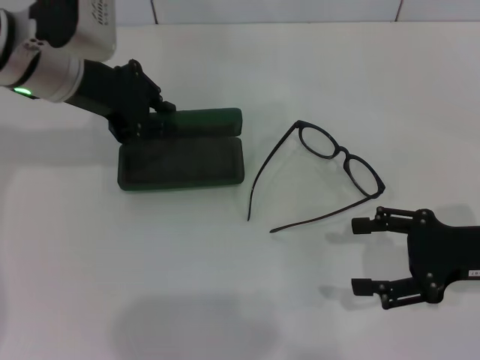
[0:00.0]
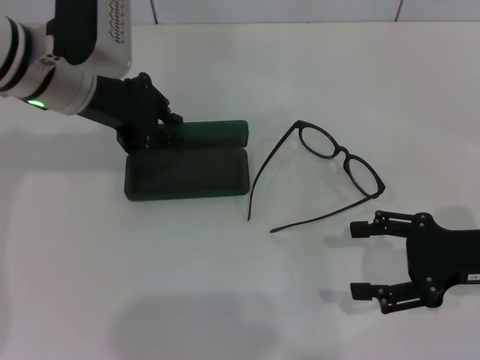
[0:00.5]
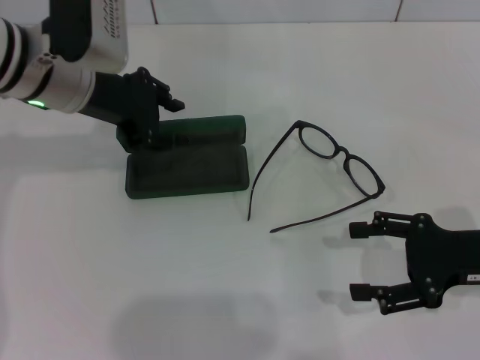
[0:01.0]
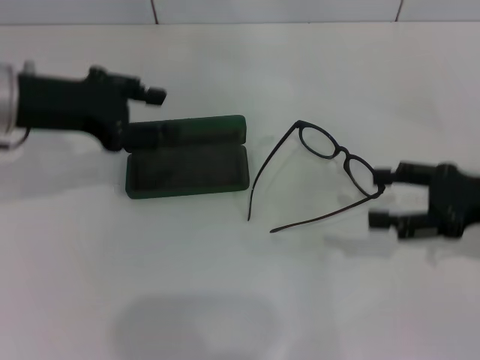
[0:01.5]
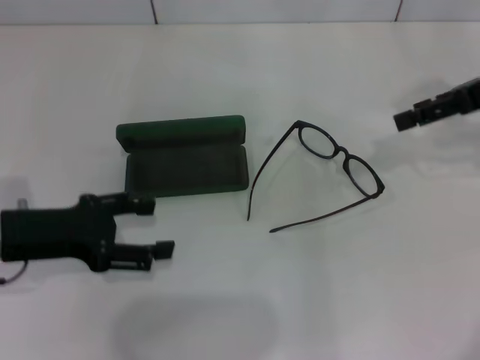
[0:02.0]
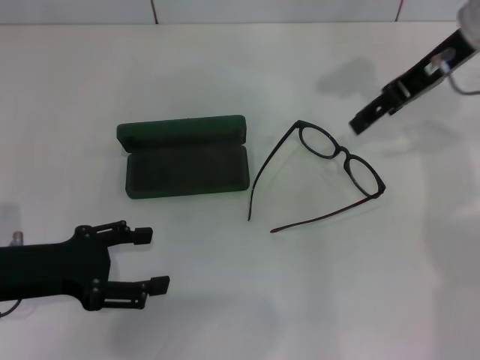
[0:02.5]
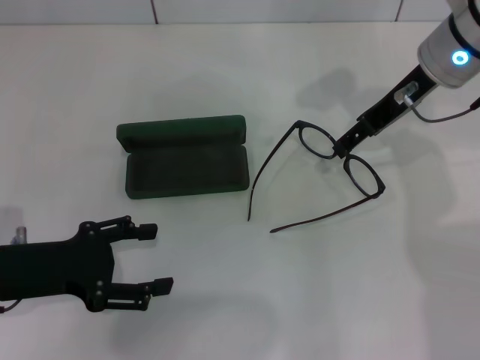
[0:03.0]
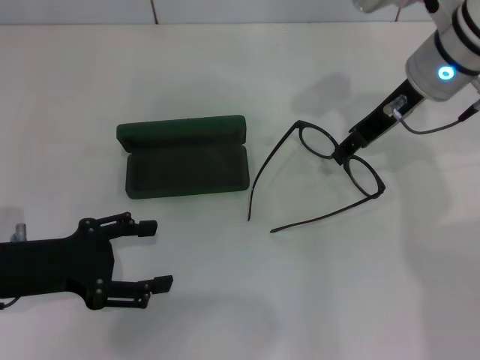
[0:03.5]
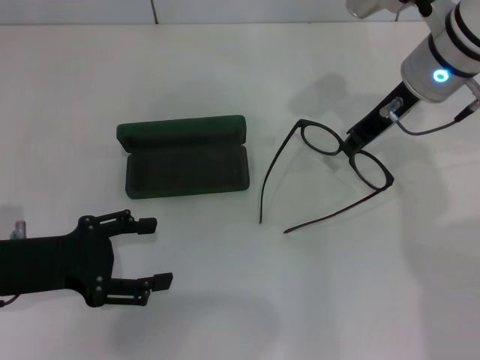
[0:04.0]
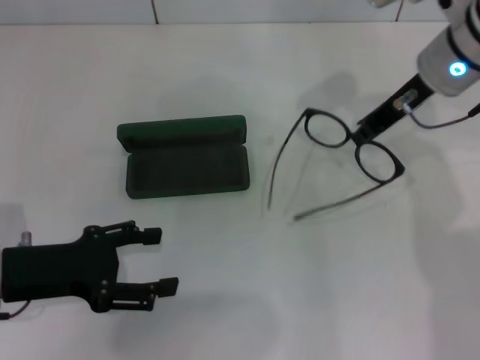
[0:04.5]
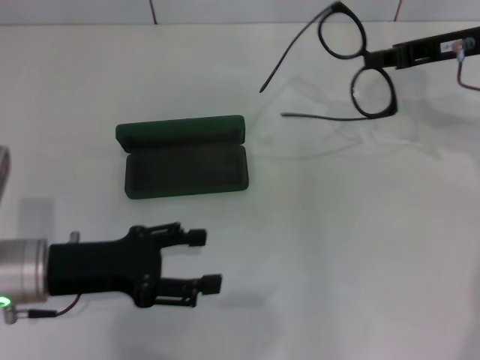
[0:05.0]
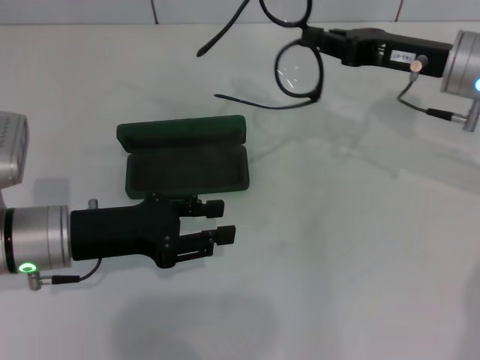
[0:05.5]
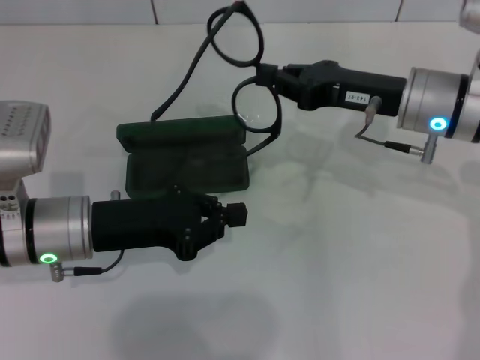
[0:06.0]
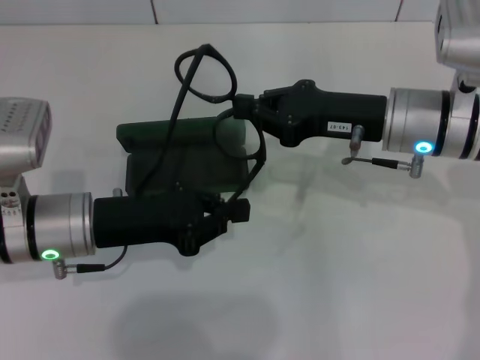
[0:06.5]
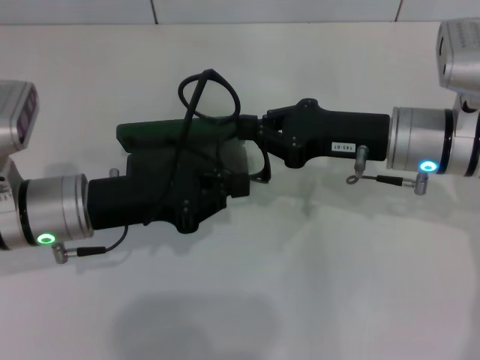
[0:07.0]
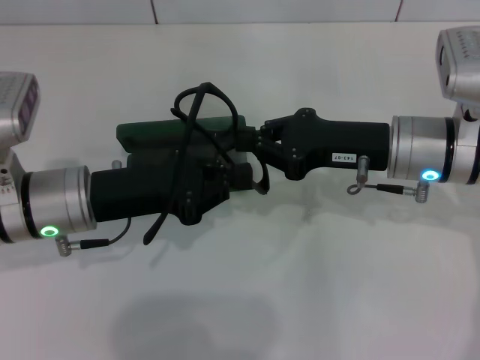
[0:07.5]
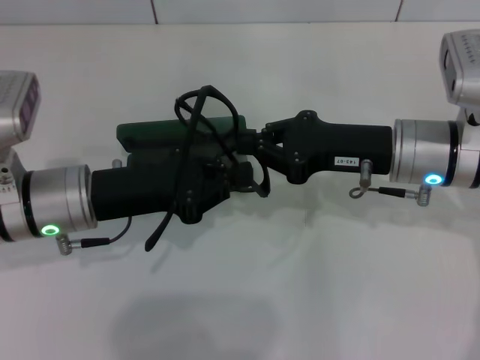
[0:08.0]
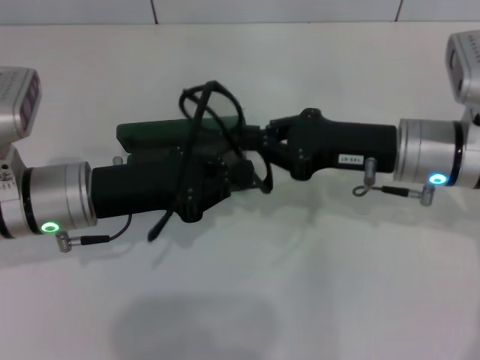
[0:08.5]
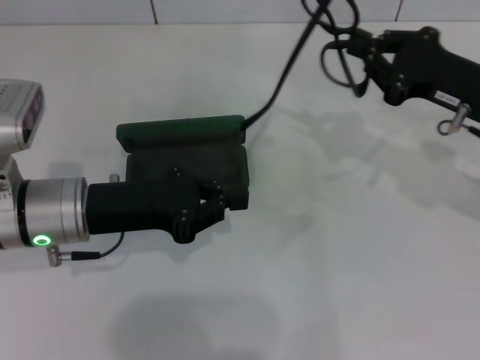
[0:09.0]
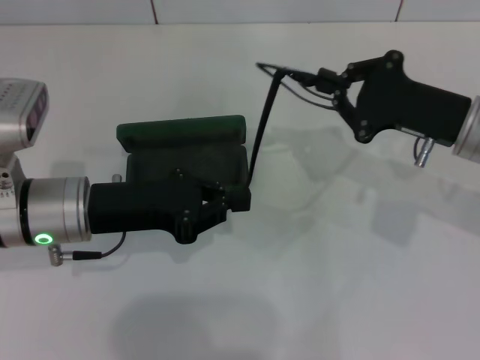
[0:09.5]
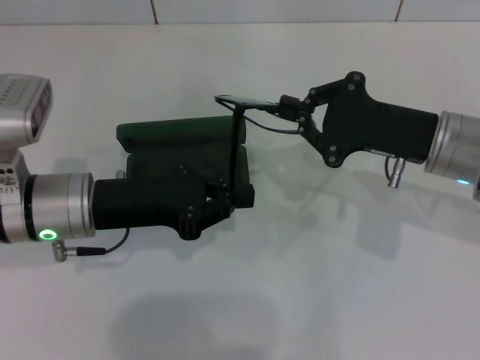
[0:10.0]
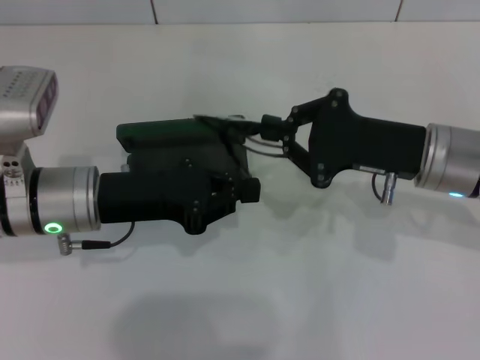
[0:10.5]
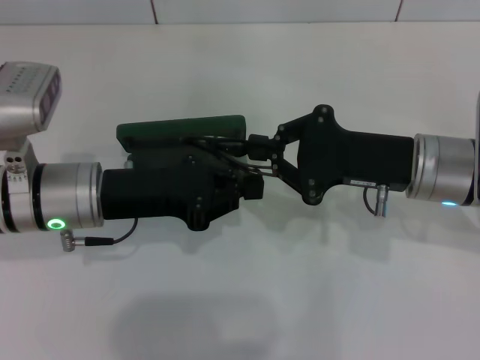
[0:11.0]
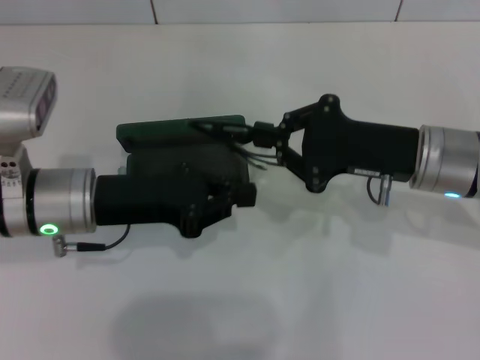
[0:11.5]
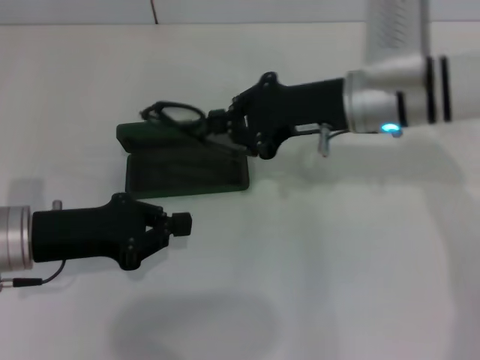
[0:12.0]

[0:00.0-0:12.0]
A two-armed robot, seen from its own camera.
Step, 0:01.0 to 0:04.0: Grab the eyeglass frame with your right hand.
Step, 0:04.5 to 0:11.0: Fold the frame with your left hand.
0:00.0 to 0:02.0: The right gripper travels upward and forward by roughly 20 cm, while the left gripper moves backward, downward and to the left, approximately 15 cm, and opens up.
0:02.0 to 0:04.0: The right gripper is displaced to the left by approximately 15 cm, and closes up.
0:04.0 to 0:06.0: The left gripper heads to the right, covering about 5 cm, and closes up. The right gripper reaches approximately 10 cm to the right, then returns.
0:10.0 to 0:12.0: The two grippers go roughly 5 cm to the left.

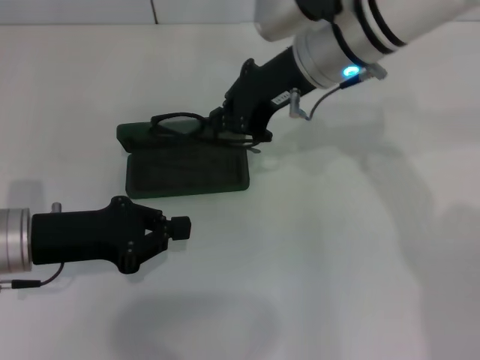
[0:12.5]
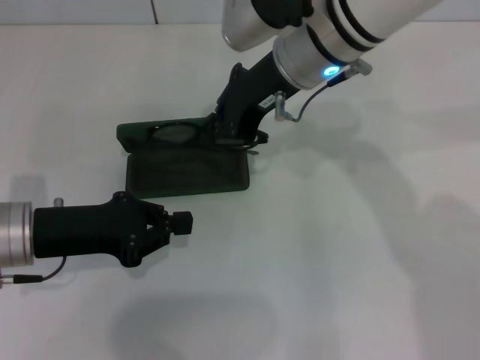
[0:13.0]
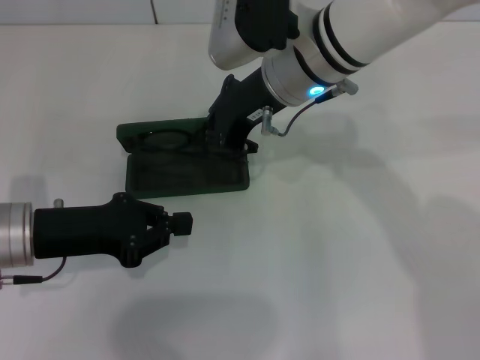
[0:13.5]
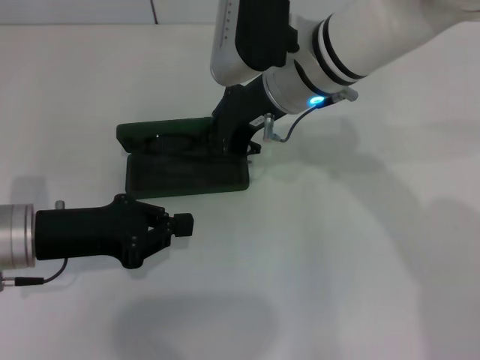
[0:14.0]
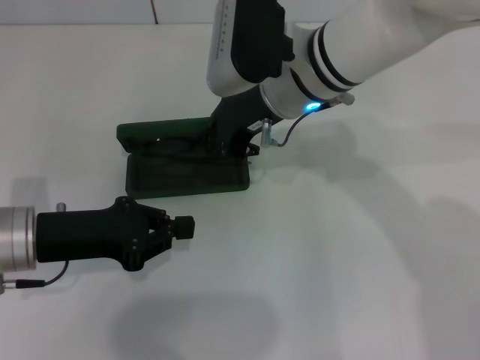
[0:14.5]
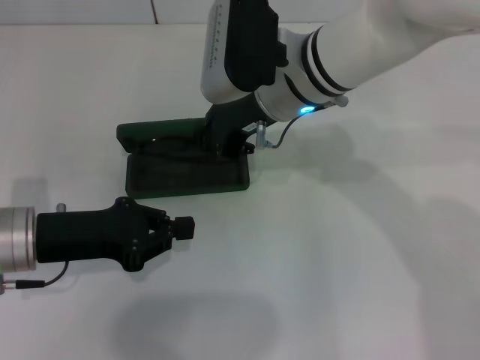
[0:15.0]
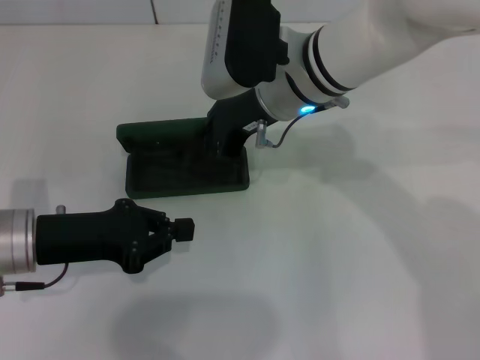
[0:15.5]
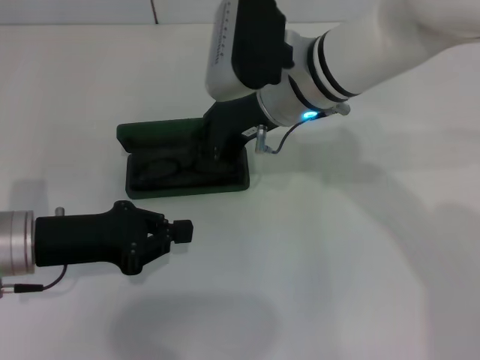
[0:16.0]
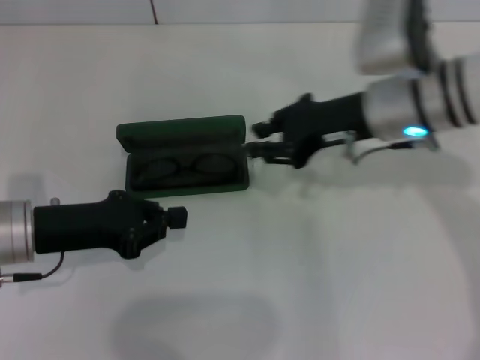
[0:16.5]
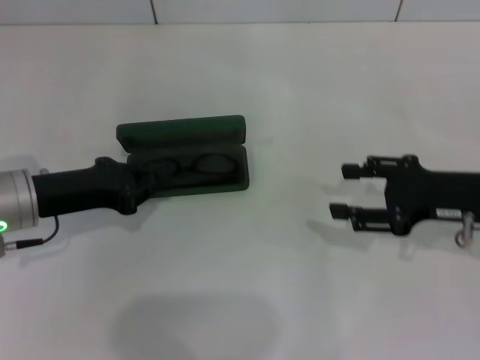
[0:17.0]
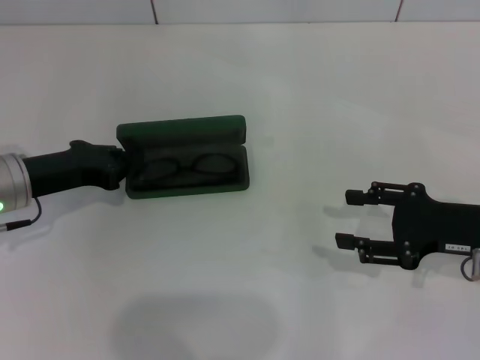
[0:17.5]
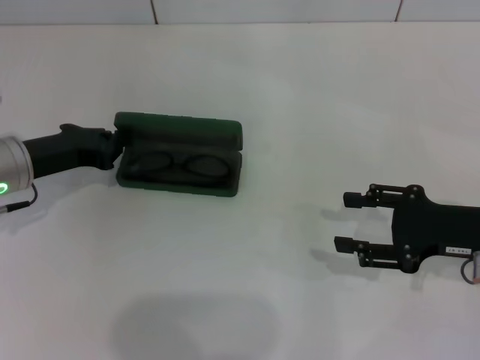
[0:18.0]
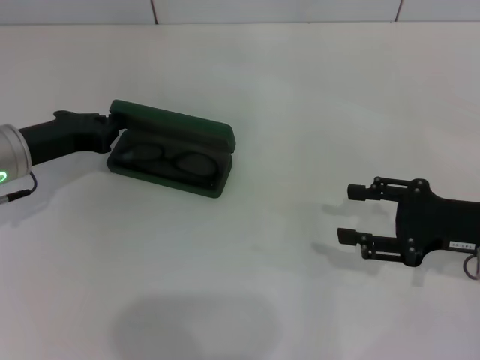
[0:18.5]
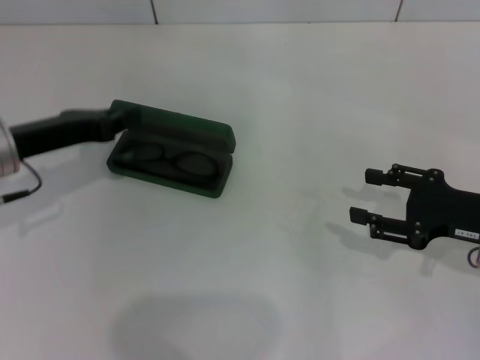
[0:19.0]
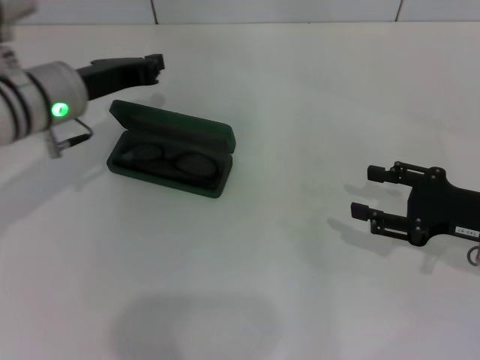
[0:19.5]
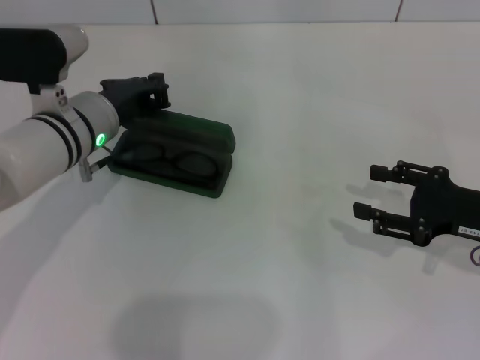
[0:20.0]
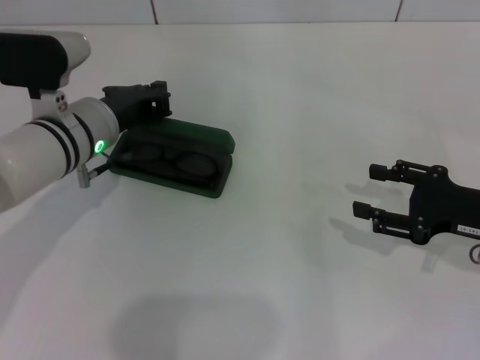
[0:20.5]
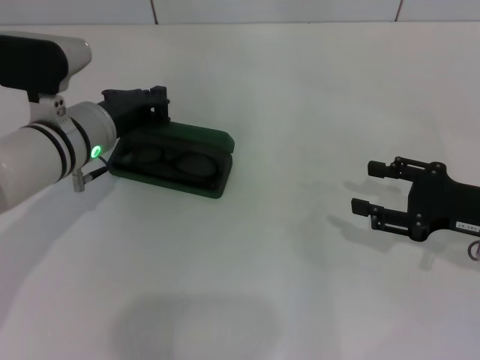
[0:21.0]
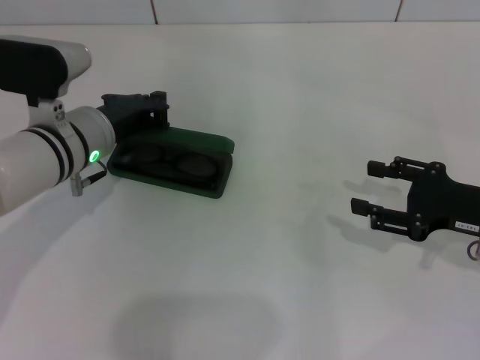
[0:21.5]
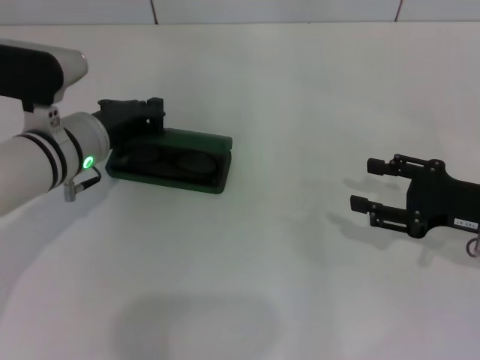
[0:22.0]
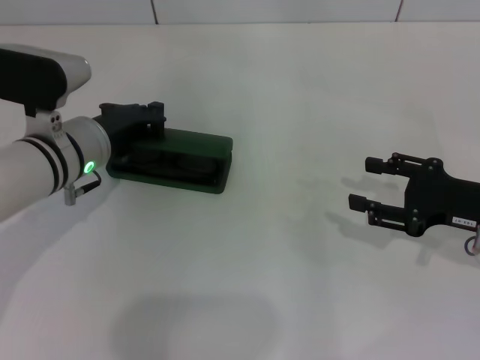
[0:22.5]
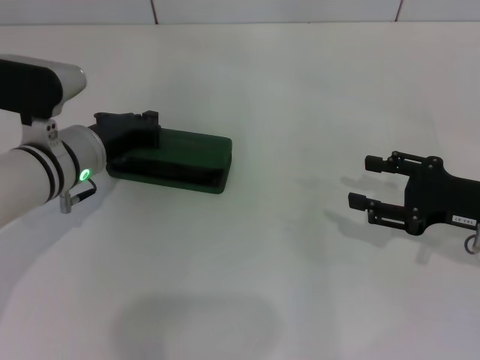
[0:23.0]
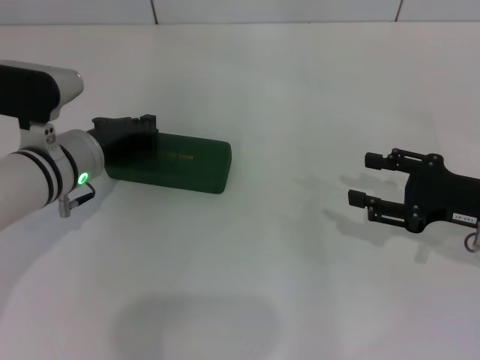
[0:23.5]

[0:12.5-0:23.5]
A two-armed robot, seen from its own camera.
Step, 0:12.5 to 0:15.5: Put the glasses into the case with your right hand.
0:12.5 to 0:14.5: The grippers stay close to where they were, moving slightly.
0:14.5 to 0:16.0: Neither gripper changes place.
0:16.0 to 0:18.0: The right gripper shifts about 25 cm to the right and backward, and opens its fingers. Meanwhile the left gripper shifts about 5 cm forward.
0:18.0 to 0:20.0: The left gripper goes approximately 10 cm to the right.
0:20.0 to 0:23.5: The grippers make only small movements.

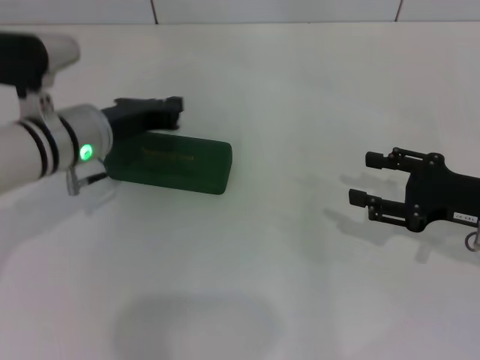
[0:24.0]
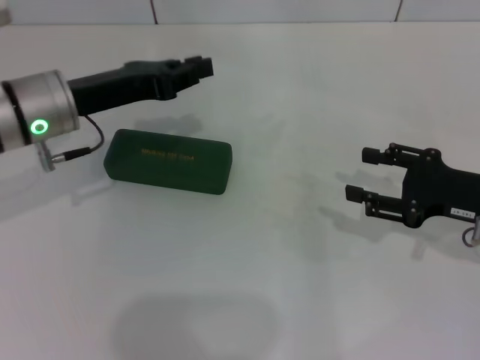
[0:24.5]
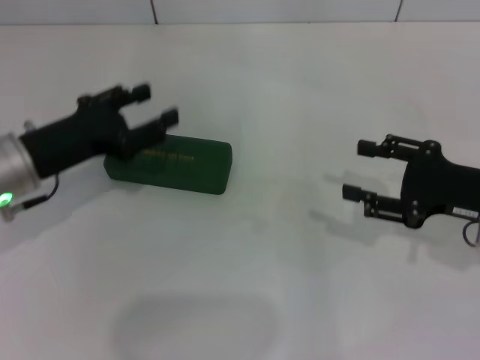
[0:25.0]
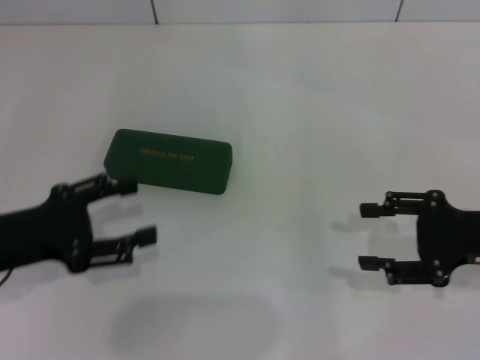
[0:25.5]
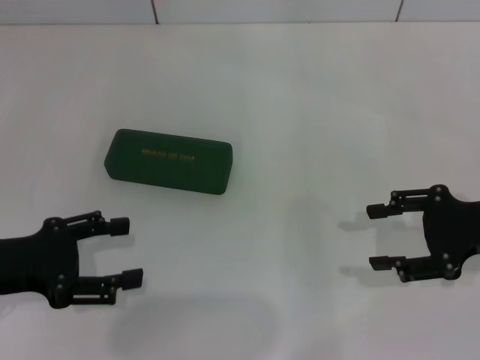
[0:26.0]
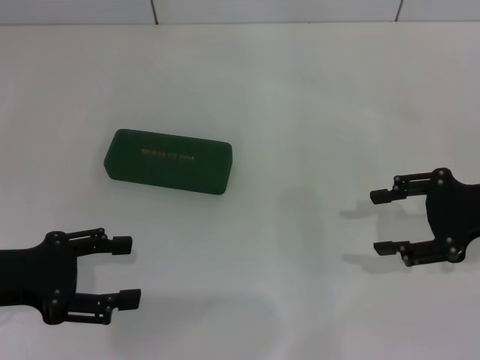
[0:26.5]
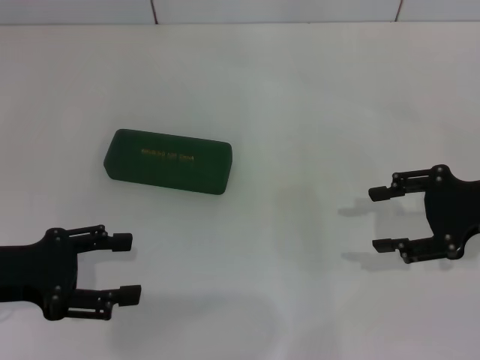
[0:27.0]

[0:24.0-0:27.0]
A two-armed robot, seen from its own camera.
0:24.0 to 0:25.5: The left gripper is displaced backward and to the left by about 15 cm, and opens its fingers.
0:25.5 to 0:27.0: The grippers move only a little.
